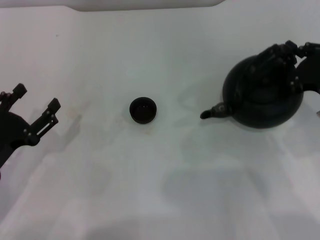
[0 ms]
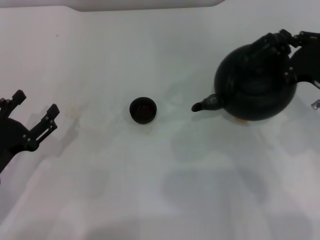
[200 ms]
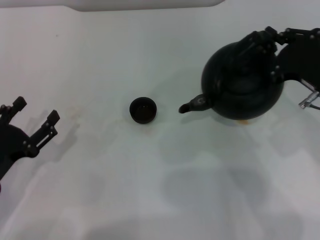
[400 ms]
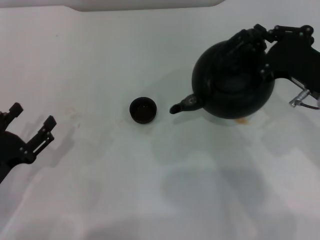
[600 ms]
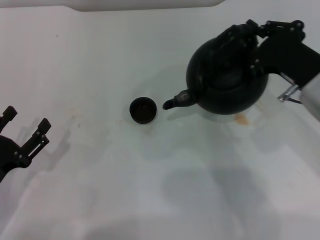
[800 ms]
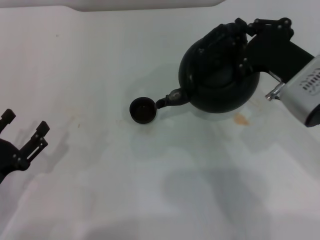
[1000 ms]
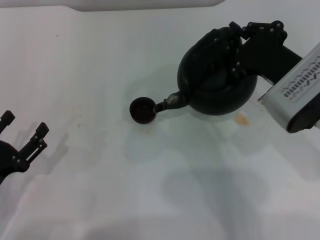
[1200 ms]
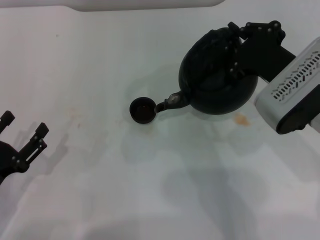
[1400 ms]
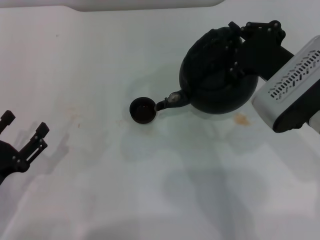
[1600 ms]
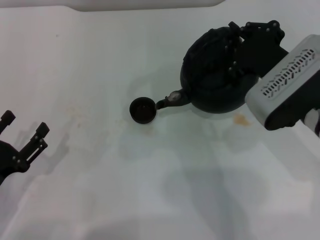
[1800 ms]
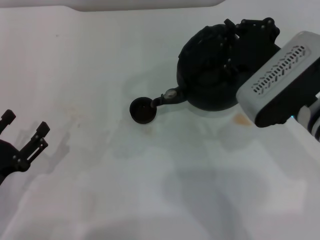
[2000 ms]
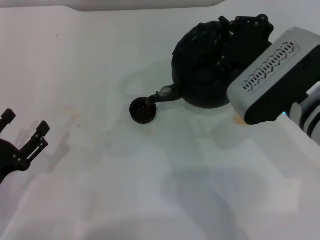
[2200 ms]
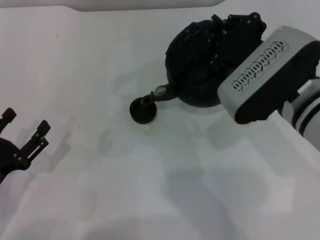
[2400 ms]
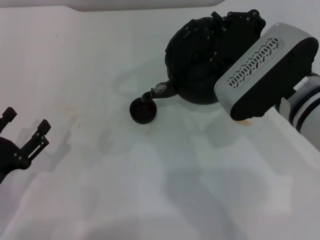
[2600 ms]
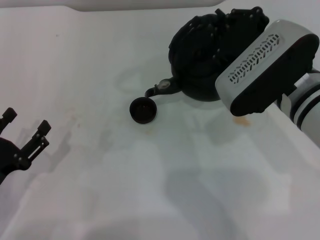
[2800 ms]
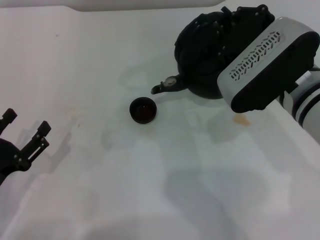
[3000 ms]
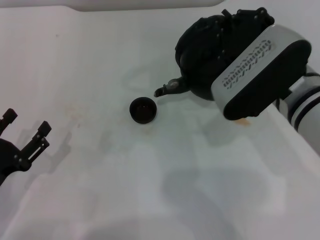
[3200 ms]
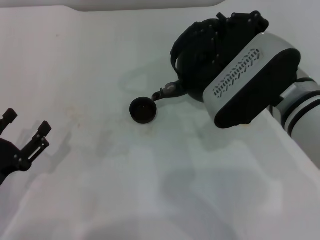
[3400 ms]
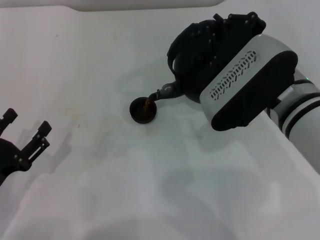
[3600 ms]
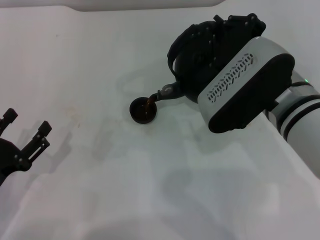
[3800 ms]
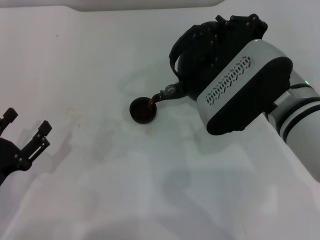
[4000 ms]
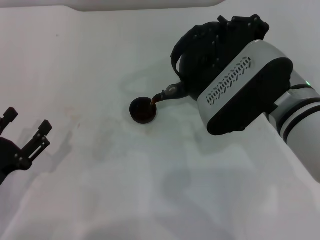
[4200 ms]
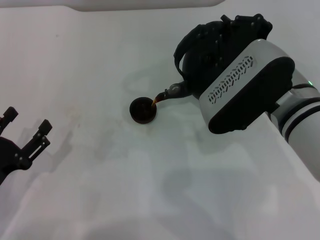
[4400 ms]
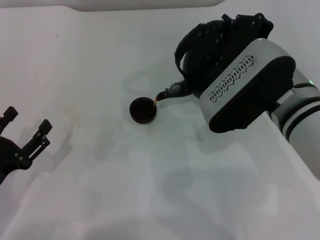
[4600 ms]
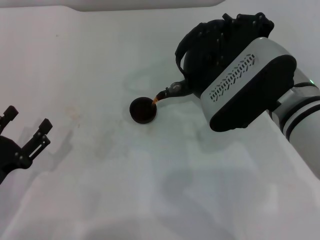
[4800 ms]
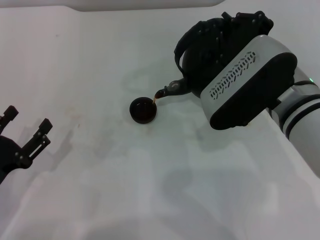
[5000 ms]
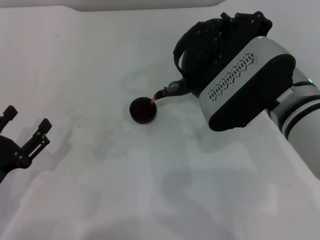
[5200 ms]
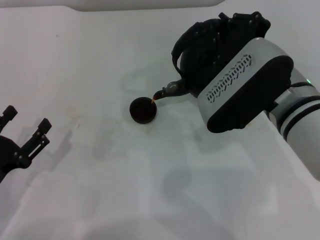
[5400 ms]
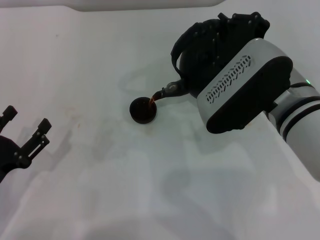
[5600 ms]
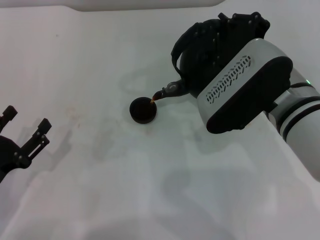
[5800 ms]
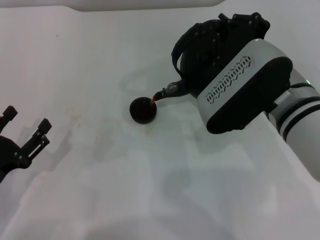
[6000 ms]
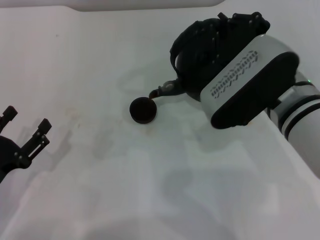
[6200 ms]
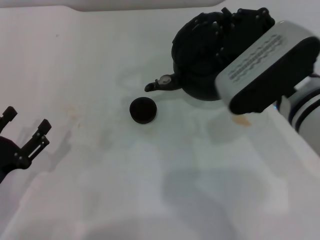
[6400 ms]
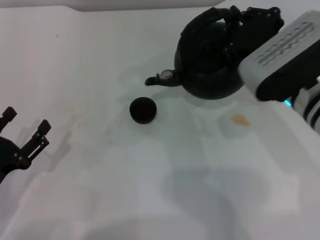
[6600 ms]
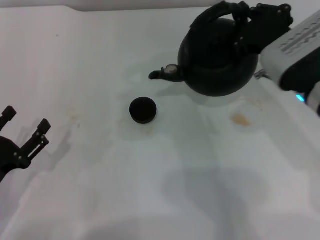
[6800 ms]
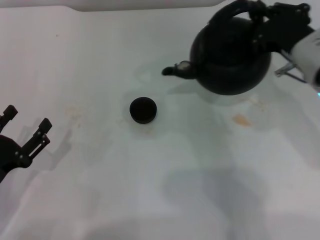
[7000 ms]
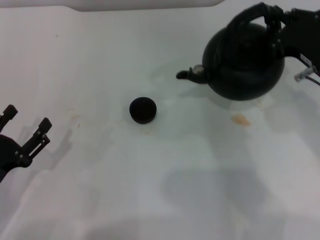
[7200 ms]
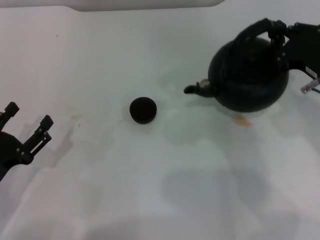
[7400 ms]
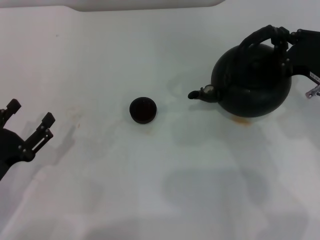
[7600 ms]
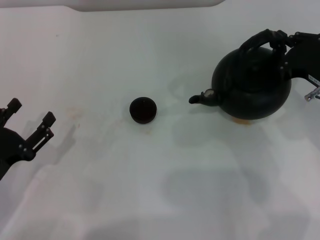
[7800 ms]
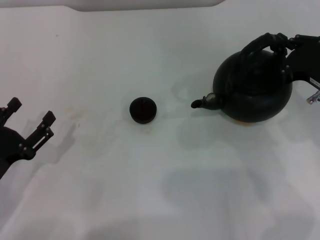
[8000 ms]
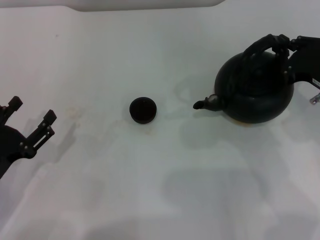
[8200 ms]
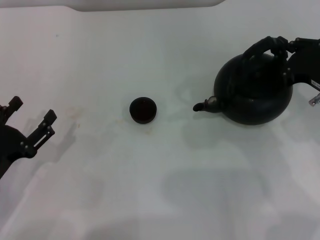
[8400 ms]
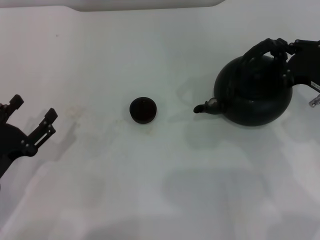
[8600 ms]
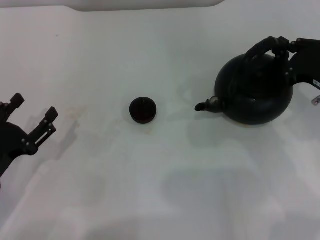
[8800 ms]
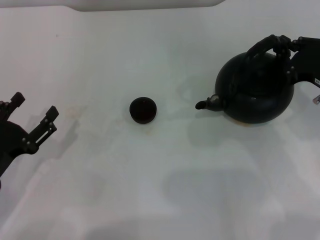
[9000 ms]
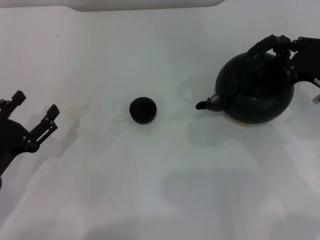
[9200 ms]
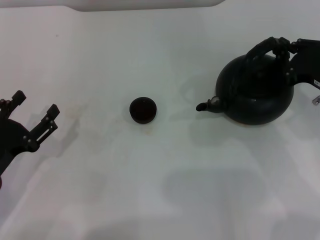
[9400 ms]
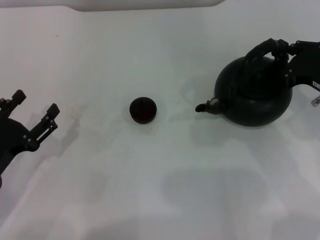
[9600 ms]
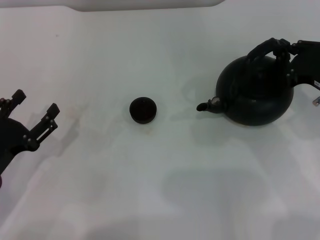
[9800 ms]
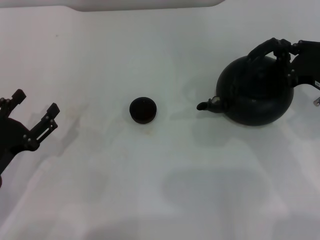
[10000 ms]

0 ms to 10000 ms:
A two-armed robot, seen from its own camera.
Task of the whole recording: Grasp the handle of the teapot with one hand and pour tea into the teacup.
Step, 600 ms to 6800 ms: Pour tea into the teacup with the right gripper.
0 ms to 1400 ms: The right gripper shifts some 10 cm to the left.
1400 ms to 4200 ms: There are only small adjustments of the grippers.
4200 ms to 5800 ms: Both grippers stay put.
5800 ms to 7200 ms: The right gripper goes some 10 cm to the right.
7200 ms to 8600 ms: The right gripper ends up approximately 5 cm from where it was.
8600 ms to 10000 ms: The two grippers keep their place.

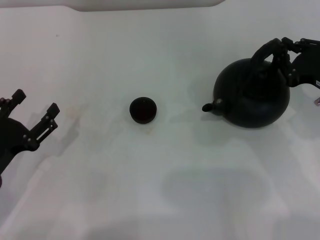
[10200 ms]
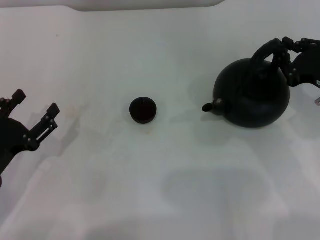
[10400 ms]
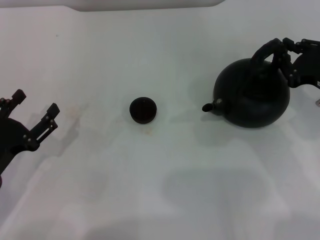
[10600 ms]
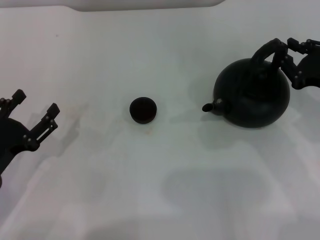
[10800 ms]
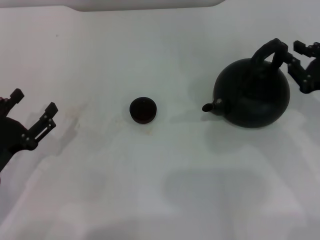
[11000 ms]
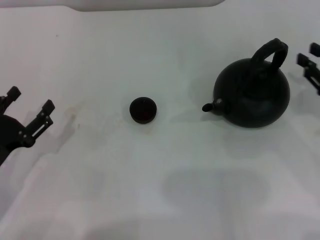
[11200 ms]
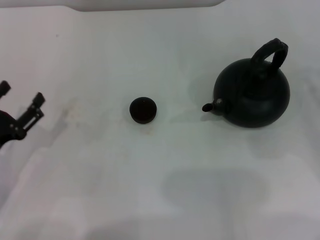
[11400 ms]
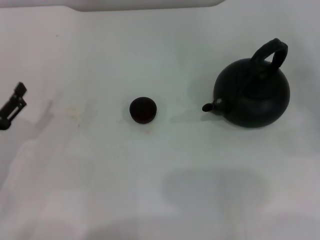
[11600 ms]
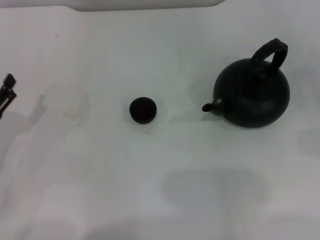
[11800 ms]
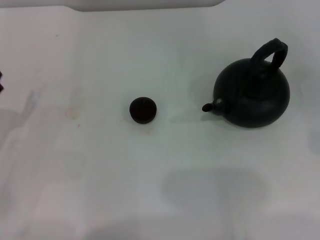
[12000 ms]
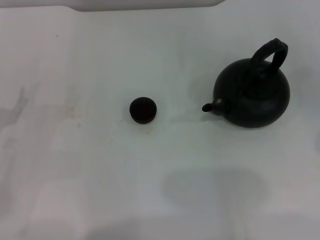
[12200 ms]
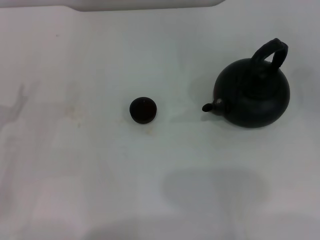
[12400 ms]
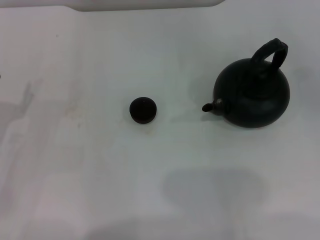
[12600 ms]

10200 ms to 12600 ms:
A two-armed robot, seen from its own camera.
Task of the whole recording: Grasp the handle of the teapot with one hand and pour tea into the teacup.
10200 ms to 11400 ms: The right gripper travels to the right by approximately 10 cm, and opens its fingers.
